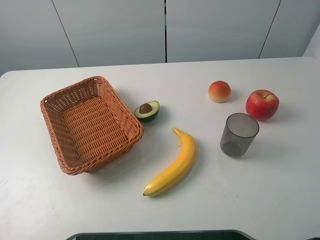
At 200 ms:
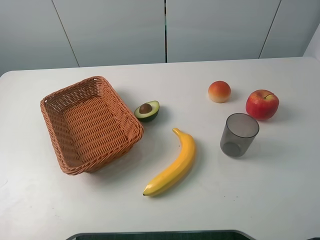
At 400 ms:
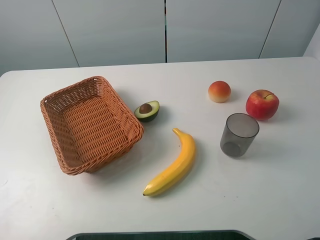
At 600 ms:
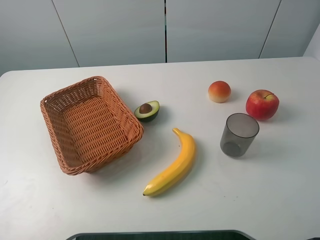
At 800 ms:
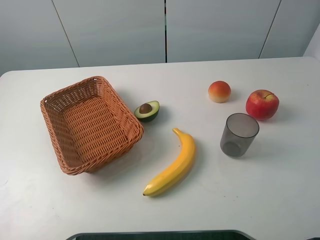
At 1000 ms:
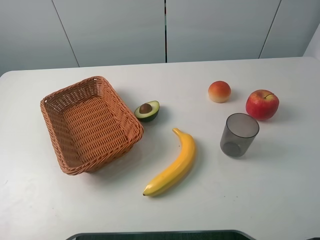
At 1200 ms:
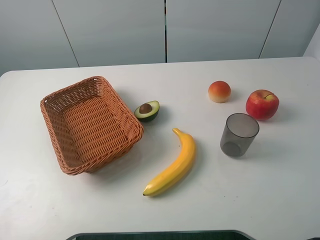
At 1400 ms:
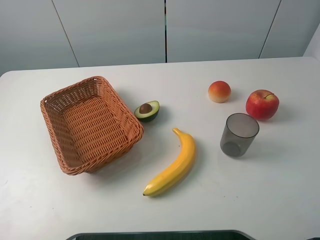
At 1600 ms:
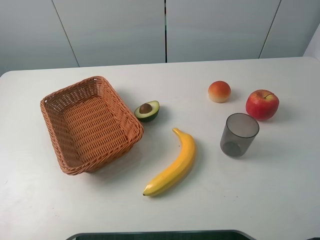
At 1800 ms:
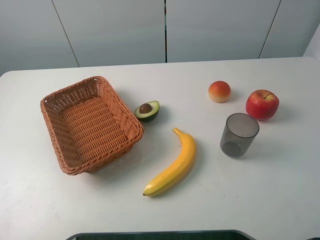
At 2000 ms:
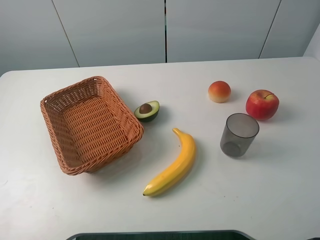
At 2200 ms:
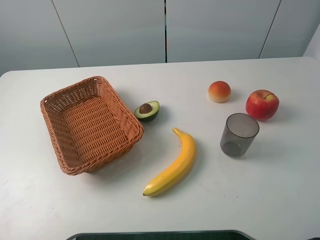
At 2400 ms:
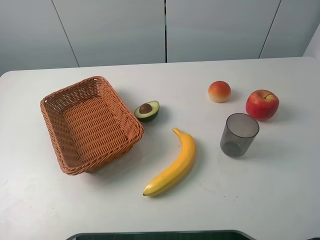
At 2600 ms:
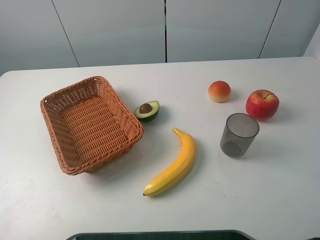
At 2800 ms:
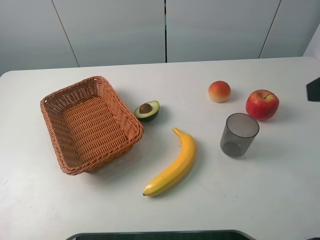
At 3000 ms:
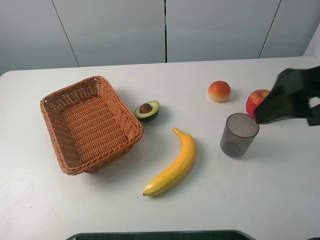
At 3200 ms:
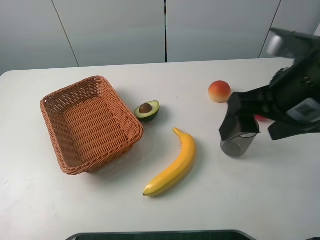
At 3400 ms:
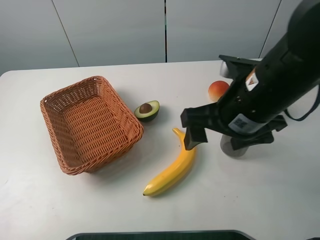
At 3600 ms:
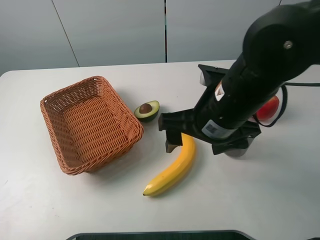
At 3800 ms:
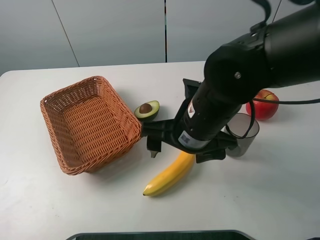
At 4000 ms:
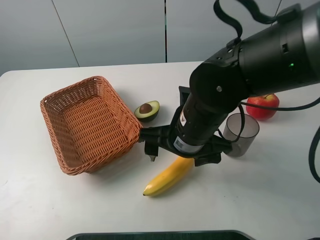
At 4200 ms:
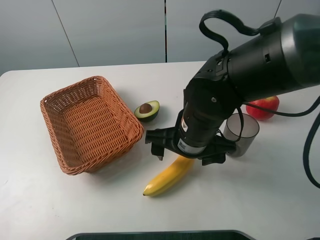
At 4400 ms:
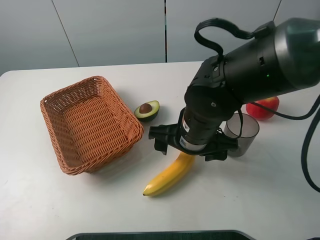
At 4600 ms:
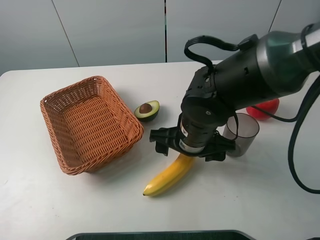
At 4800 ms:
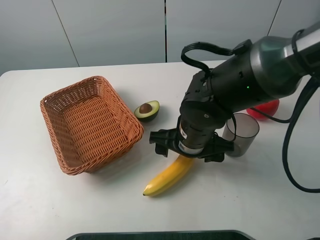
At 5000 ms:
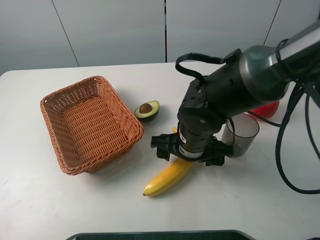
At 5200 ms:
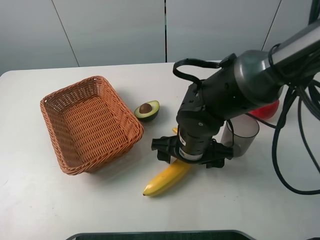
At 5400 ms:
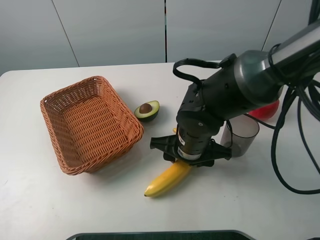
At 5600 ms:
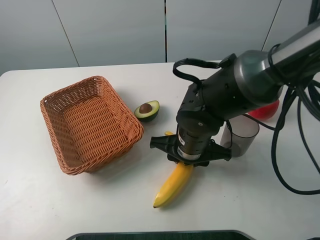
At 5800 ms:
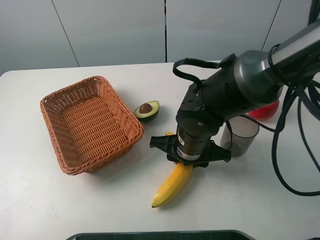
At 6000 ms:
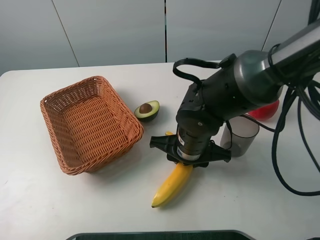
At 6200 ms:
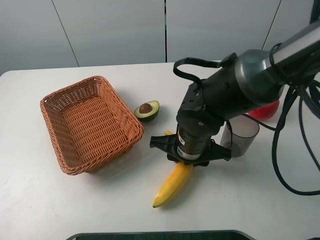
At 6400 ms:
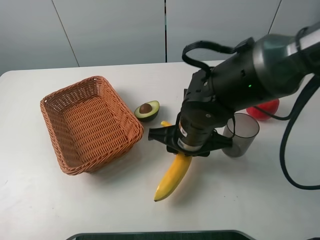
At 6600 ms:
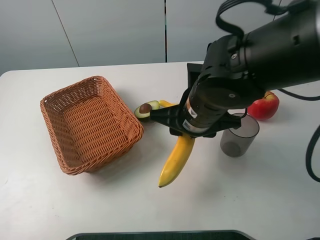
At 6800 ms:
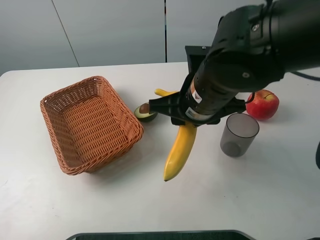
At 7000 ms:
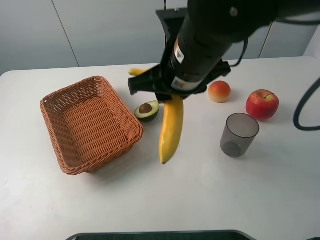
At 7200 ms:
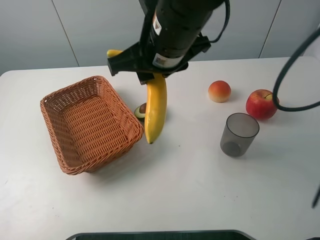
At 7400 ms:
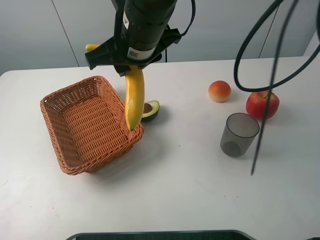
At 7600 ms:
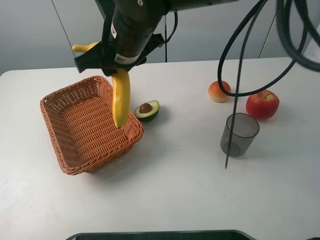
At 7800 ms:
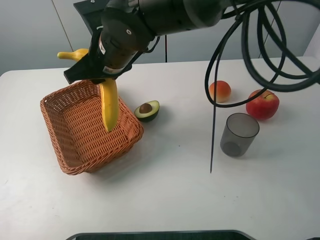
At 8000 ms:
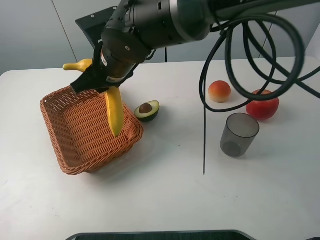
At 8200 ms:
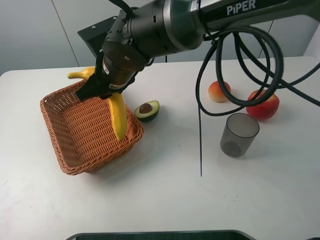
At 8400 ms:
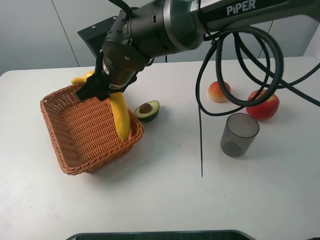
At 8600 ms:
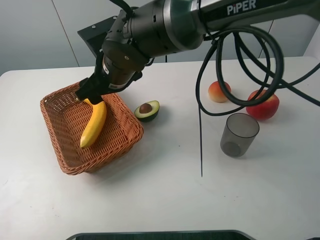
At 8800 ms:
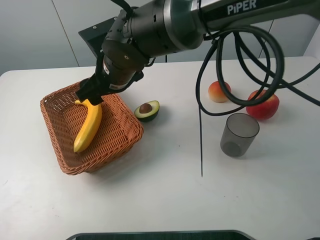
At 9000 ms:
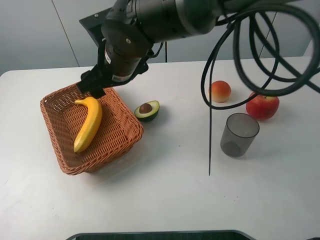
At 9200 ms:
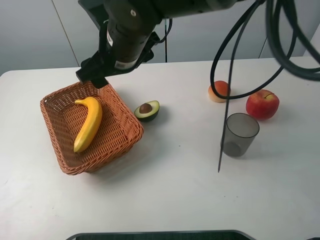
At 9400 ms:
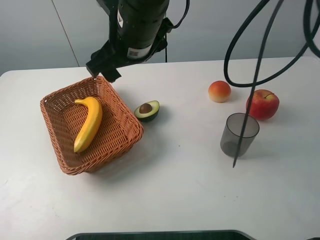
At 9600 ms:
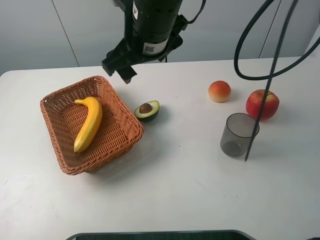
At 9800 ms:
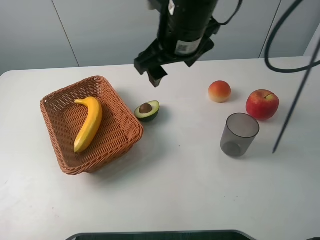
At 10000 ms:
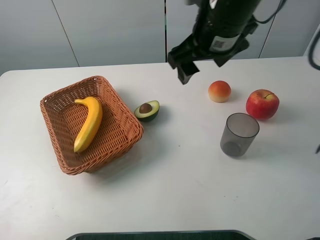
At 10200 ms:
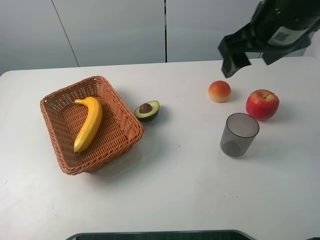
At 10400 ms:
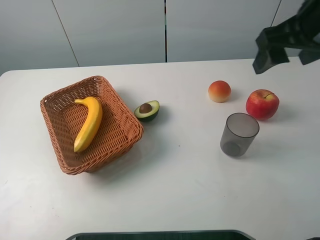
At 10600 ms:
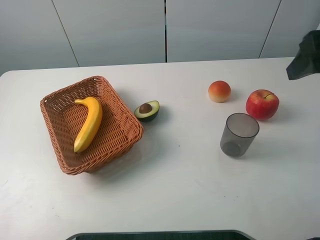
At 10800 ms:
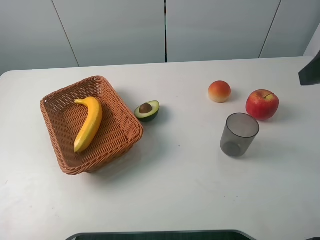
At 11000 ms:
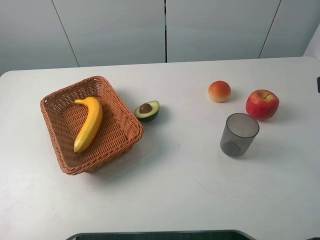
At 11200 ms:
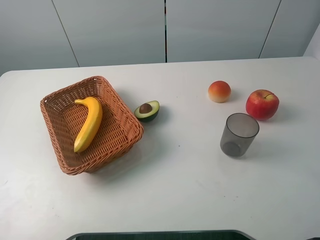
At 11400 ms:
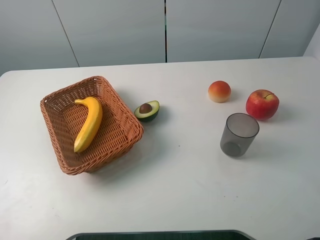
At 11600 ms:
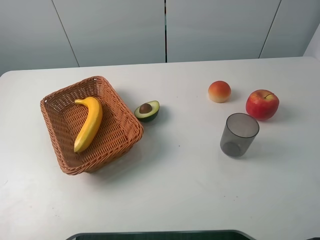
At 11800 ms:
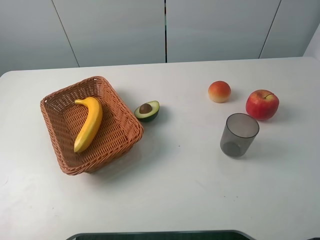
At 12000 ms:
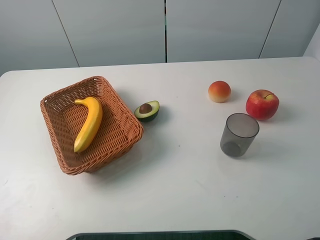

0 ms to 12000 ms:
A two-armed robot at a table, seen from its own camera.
Task of the whole recording: randomly pick up an item from the table and put it in the basket.
Step, 0 ms to 5400 ms: Grasp the banana with the right gripper.
Step, 5600 ms to 8800 ms: Place the banana into the basket with the right gripper.
0 ms to 1600 ms: Both grippers stay put.
1600 ms to 3000 ms: The right gripper goes some 15 cm forward and to the left.
3000 ms to 4400 ms: The right gripper heads downward and to the left, covering about 20 cm.
4400 ms to 6000 ms: The right gripper closes.
6000 ms to 7600 ms: The right gripper is displaced upward, to the left and forward by roughly 20 cm.
7600 ms to 9000 ms: The right gripper opens its fingers.
9000 ms to 10400 ms: The right gripper goes roughly 30 cm to the right.
10400 ms to 12000 ms: The right gripper heads backward, covering some 20 cm.

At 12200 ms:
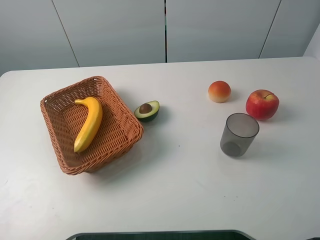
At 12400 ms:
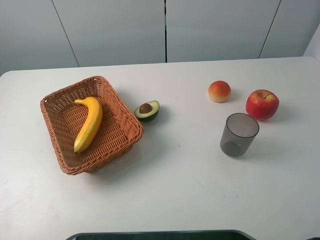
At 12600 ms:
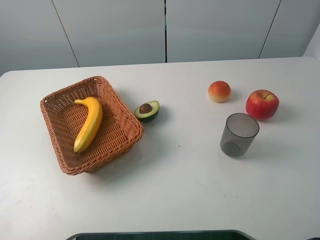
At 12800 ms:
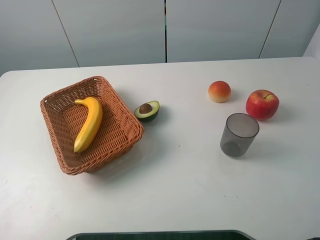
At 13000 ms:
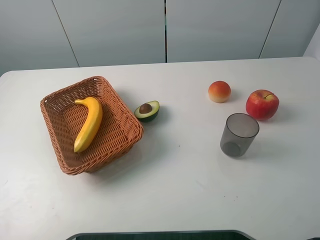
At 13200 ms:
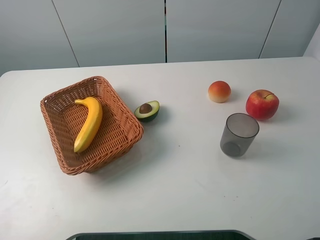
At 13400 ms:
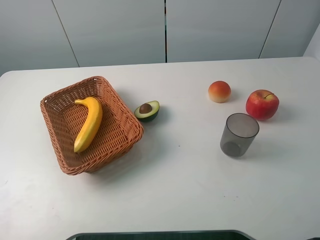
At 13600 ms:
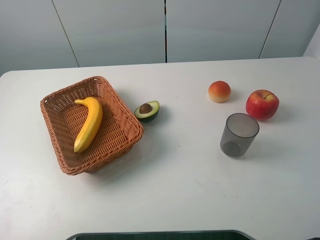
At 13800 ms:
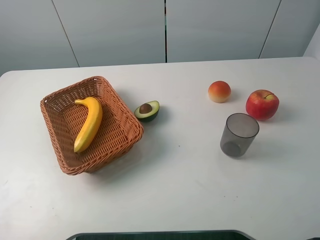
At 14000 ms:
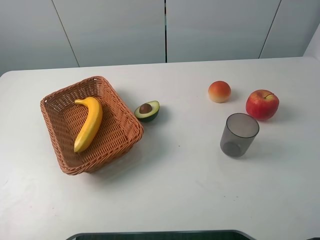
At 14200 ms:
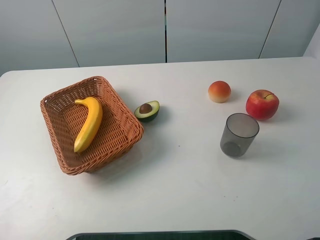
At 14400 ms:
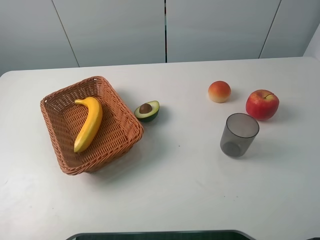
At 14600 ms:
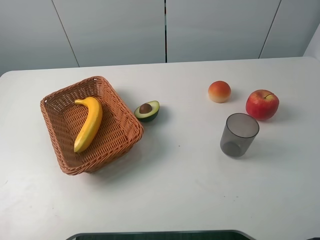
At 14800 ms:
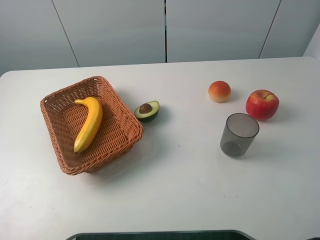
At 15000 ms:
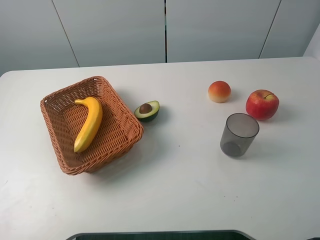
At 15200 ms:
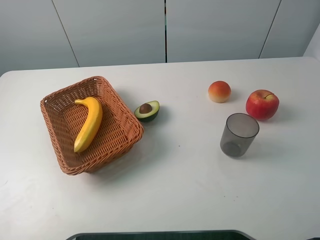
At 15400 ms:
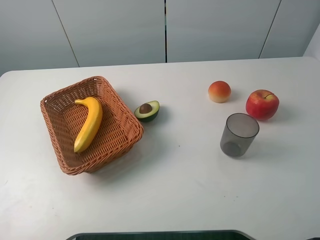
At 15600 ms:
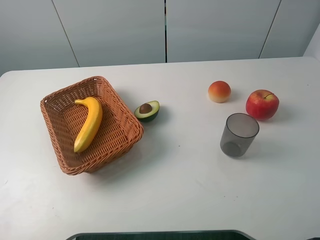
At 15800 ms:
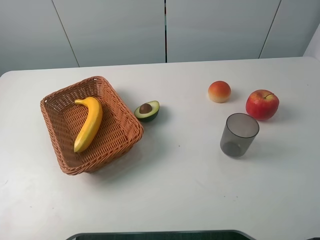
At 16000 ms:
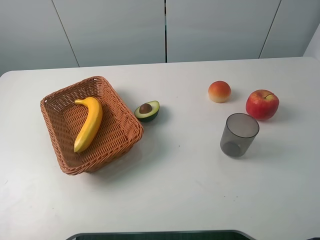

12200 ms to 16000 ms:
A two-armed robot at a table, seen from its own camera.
Task of the whole recording: randomly pick up an item from the table and put it in the basket.
14800 ms to 16000 ms: Neither gripper changes place.
